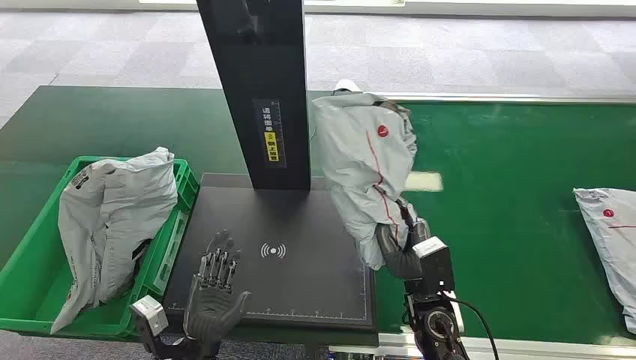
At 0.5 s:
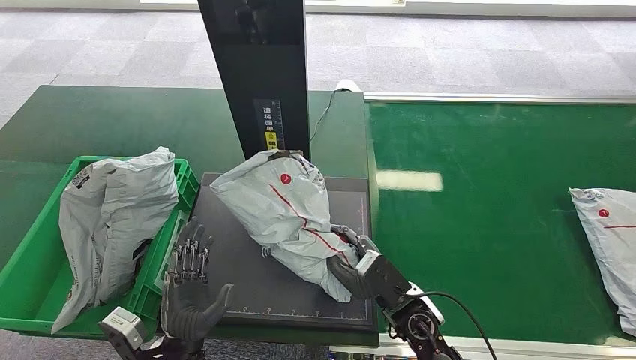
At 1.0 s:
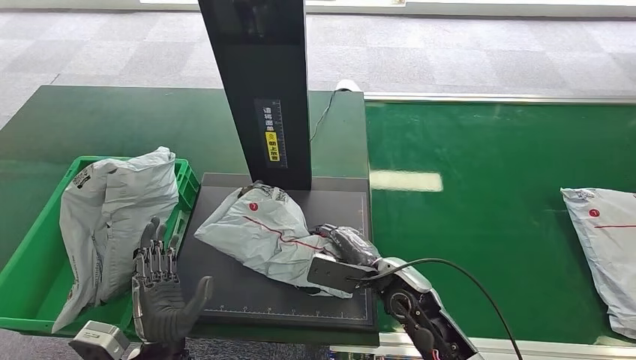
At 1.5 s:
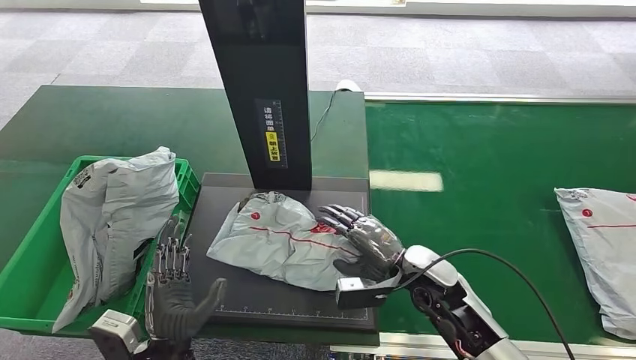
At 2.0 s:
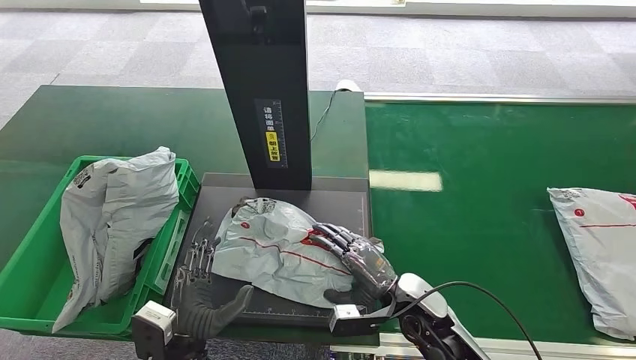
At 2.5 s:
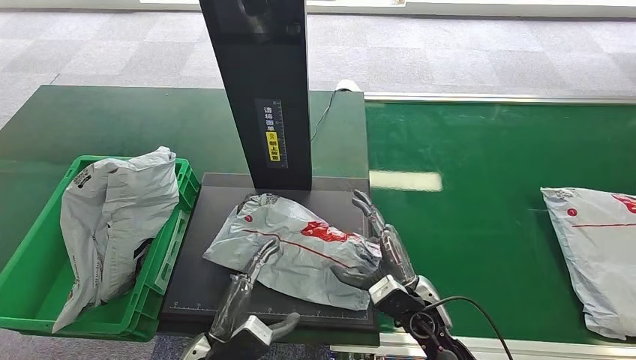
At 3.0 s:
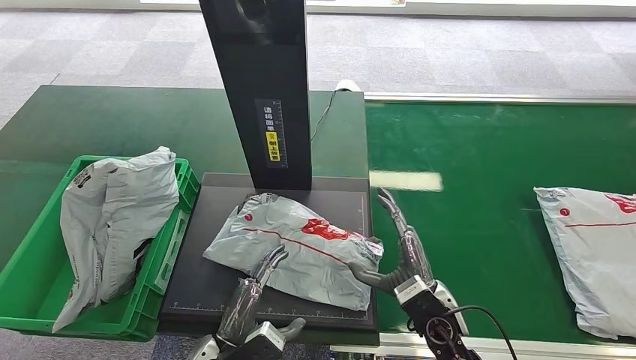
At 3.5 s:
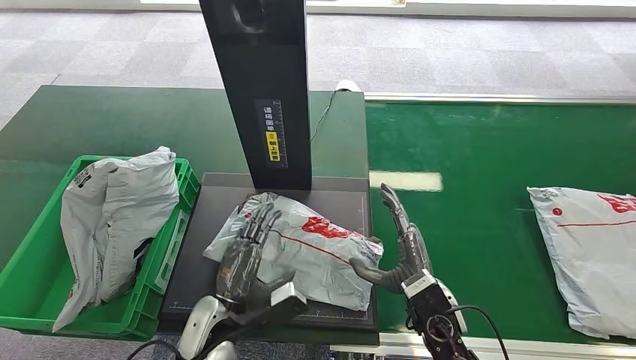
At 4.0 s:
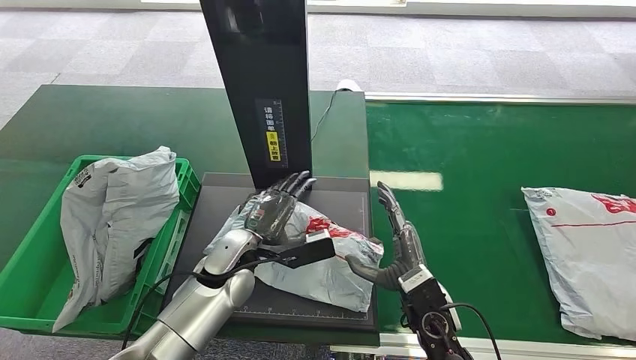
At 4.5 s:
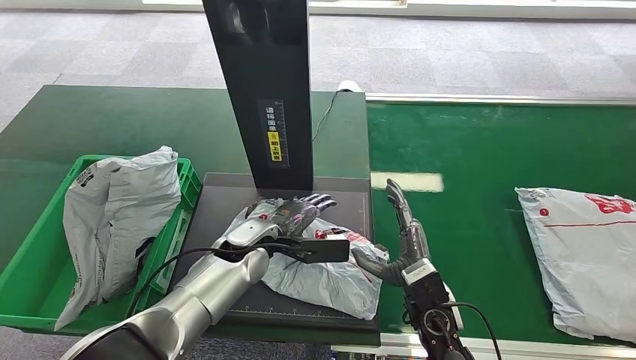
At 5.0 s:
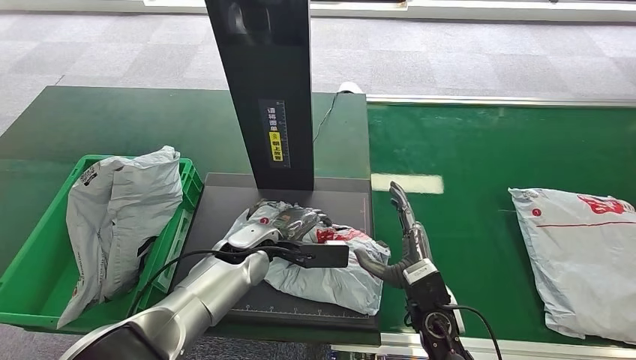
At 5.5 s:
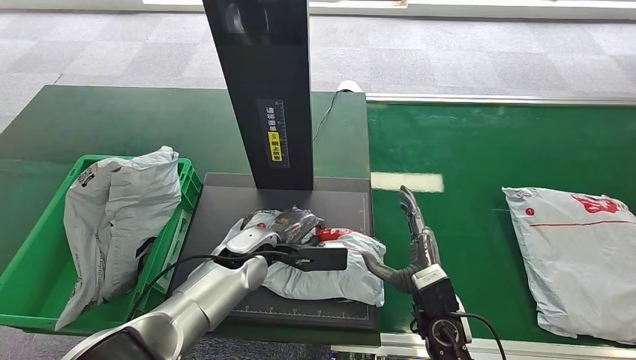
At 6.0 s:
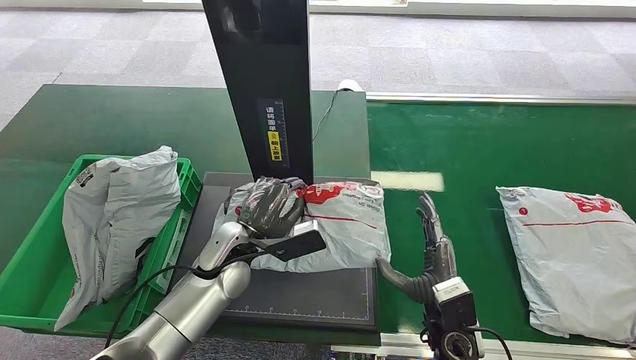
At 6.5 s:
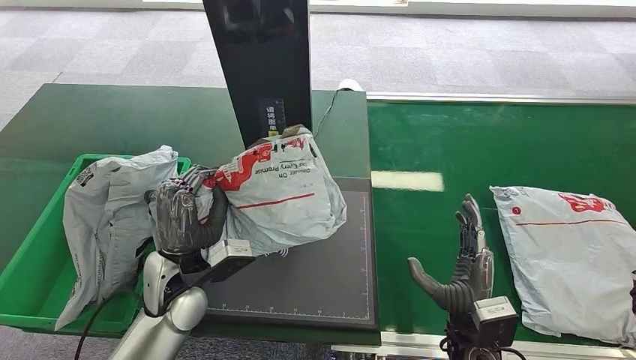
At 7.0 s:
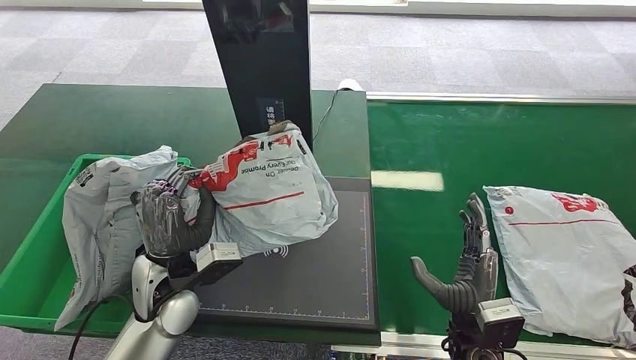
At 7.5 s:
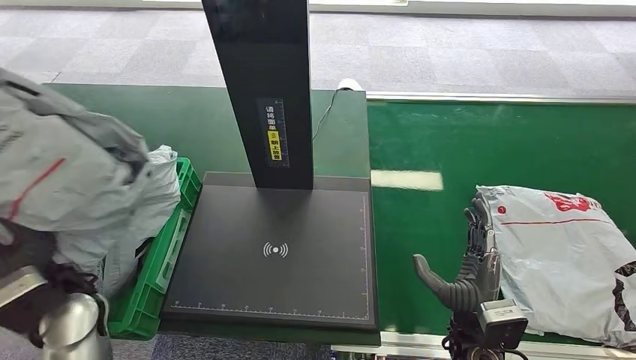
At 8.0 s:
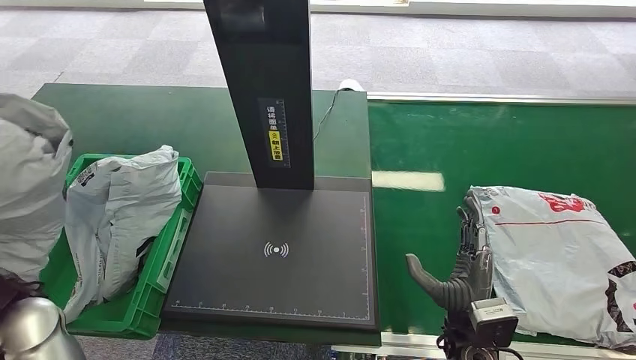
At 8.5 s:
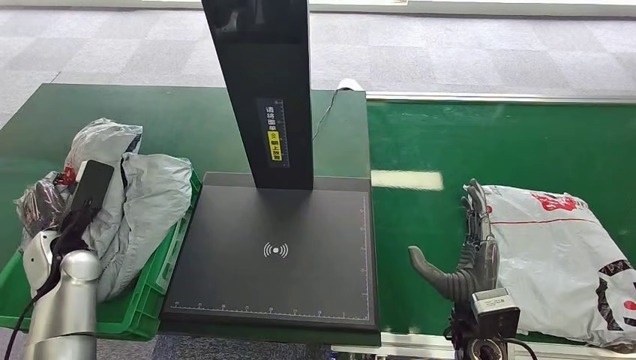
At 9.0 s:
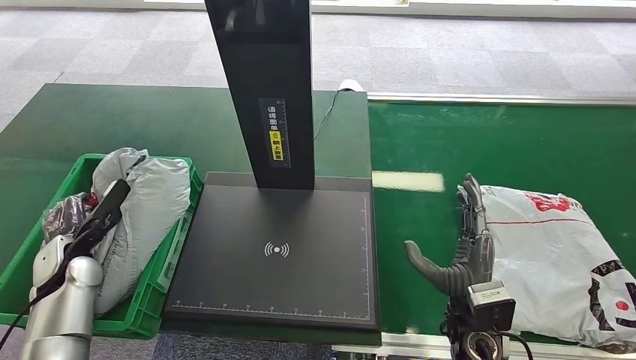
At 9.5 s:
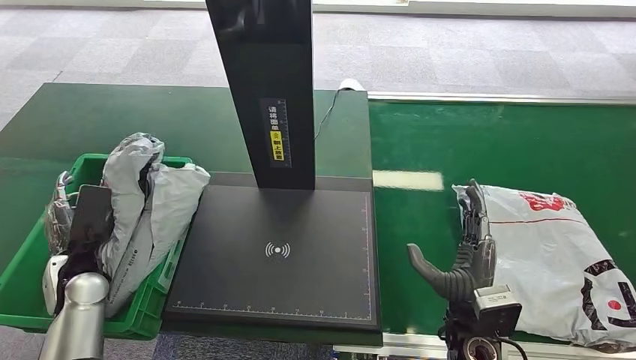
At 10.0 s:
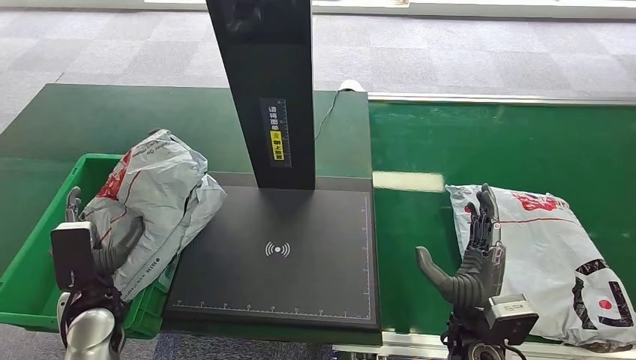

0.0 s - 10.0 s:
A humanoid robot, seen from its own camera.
2.0 s - 4.0 s: The left hand moves forward, roughly 15 cm.
